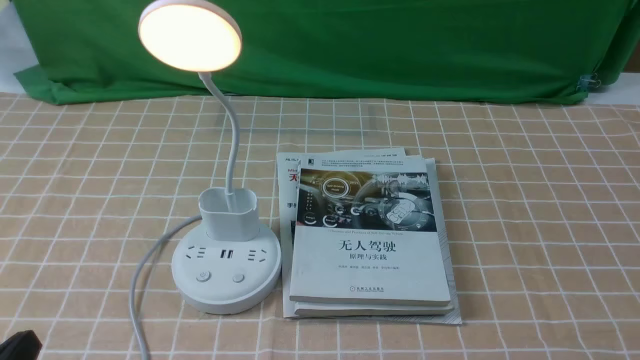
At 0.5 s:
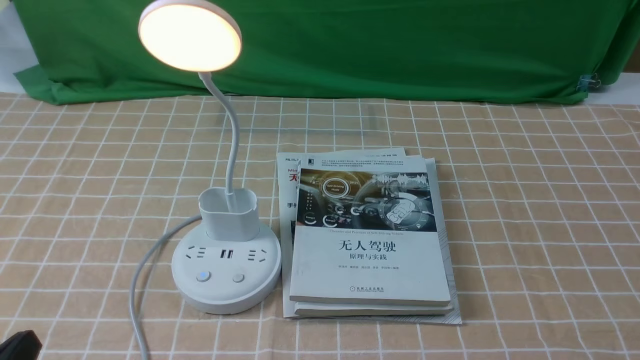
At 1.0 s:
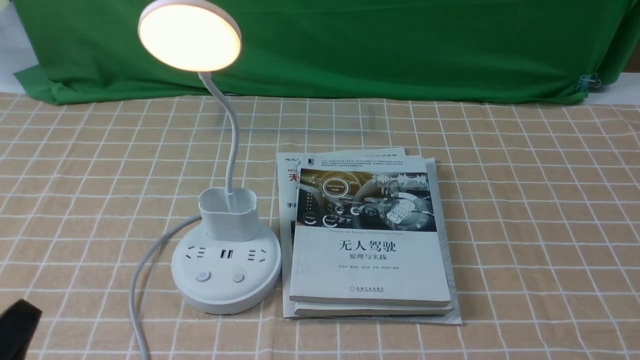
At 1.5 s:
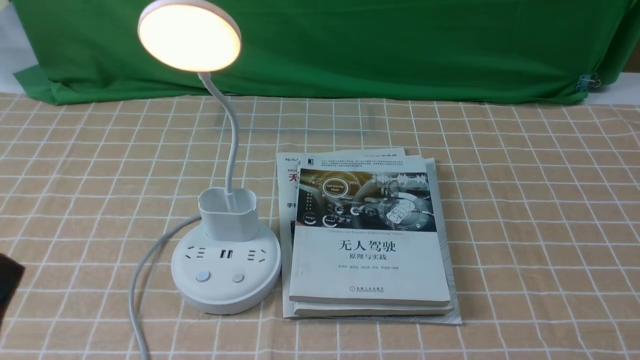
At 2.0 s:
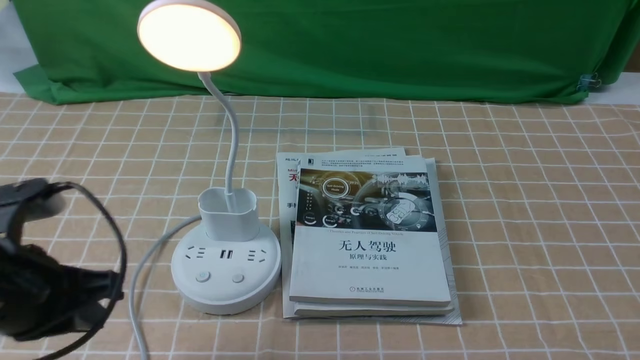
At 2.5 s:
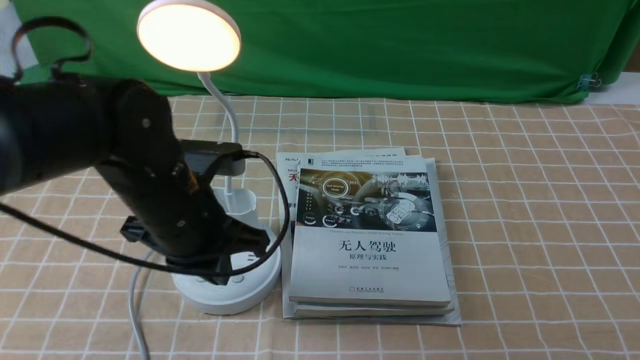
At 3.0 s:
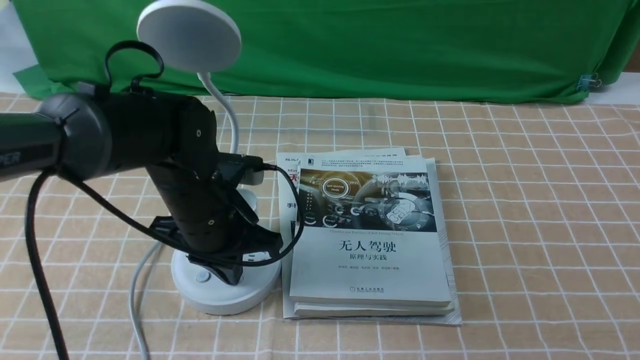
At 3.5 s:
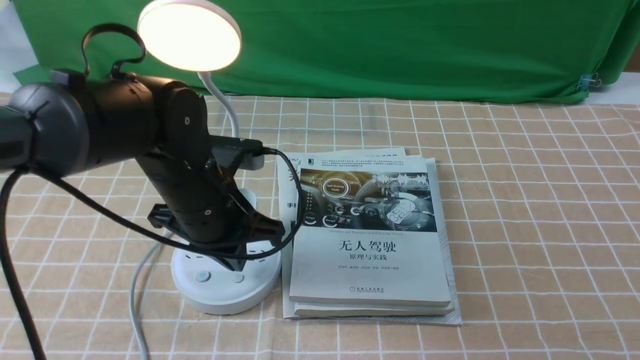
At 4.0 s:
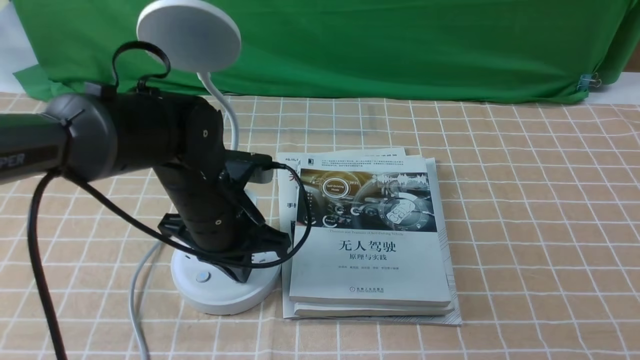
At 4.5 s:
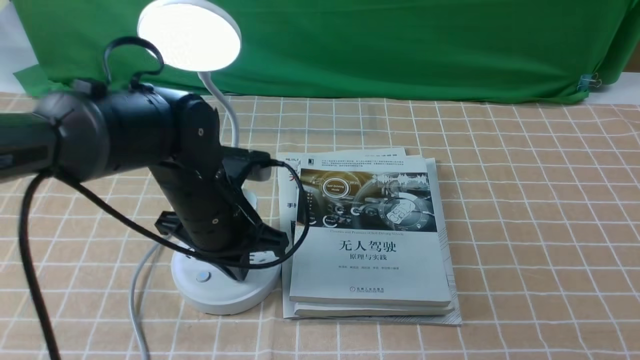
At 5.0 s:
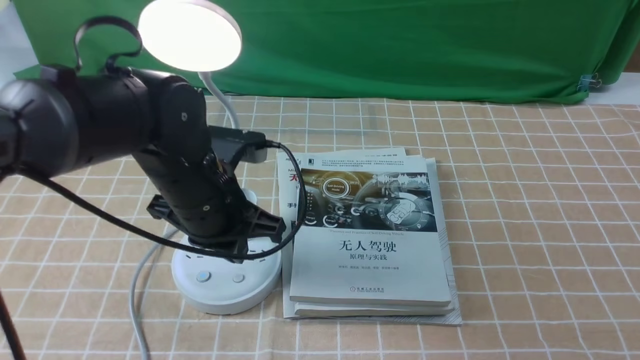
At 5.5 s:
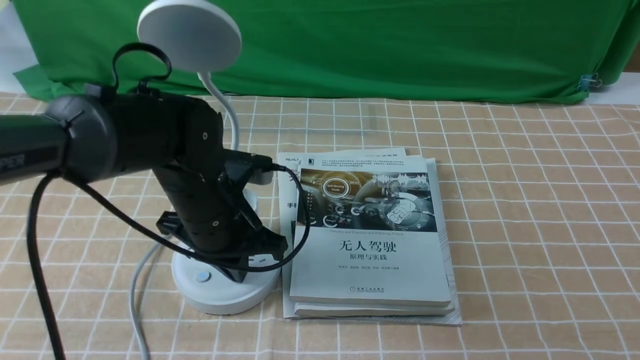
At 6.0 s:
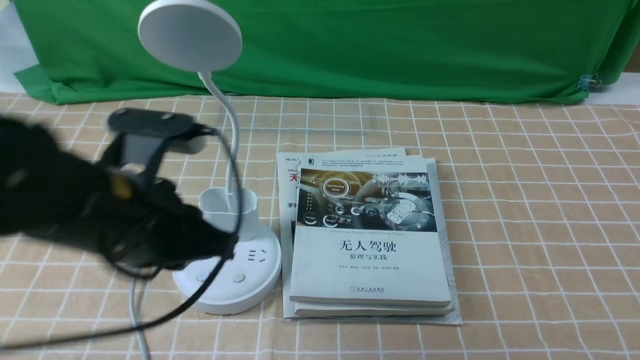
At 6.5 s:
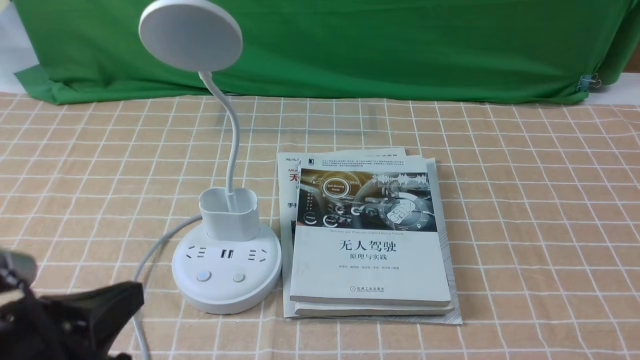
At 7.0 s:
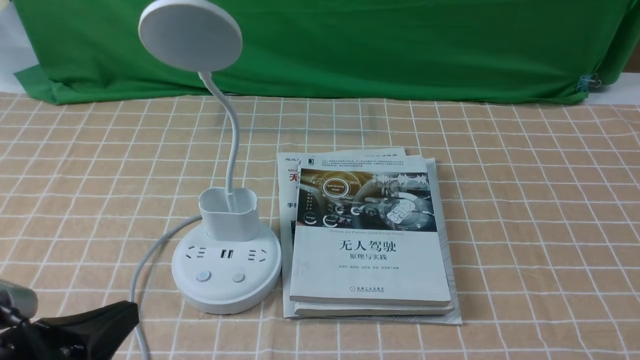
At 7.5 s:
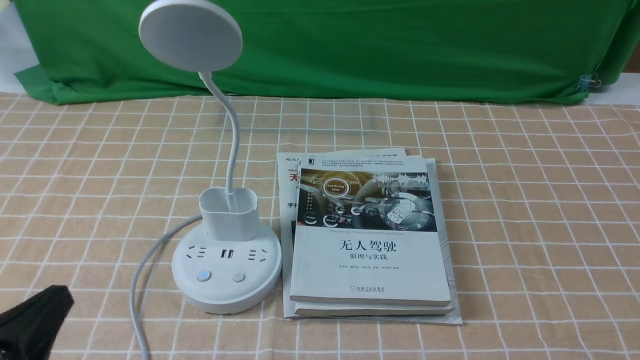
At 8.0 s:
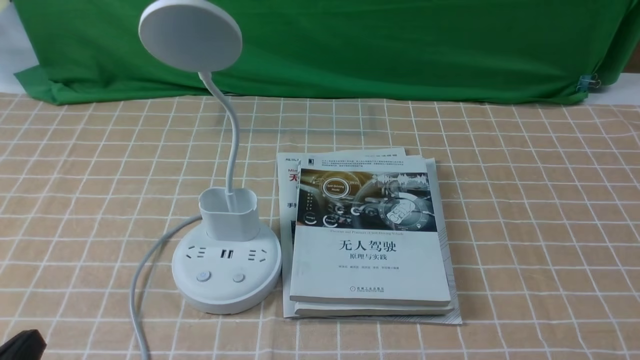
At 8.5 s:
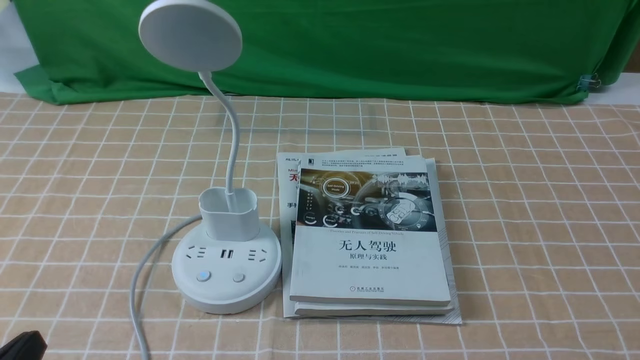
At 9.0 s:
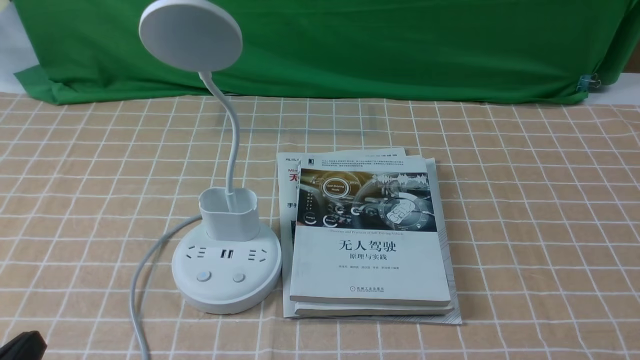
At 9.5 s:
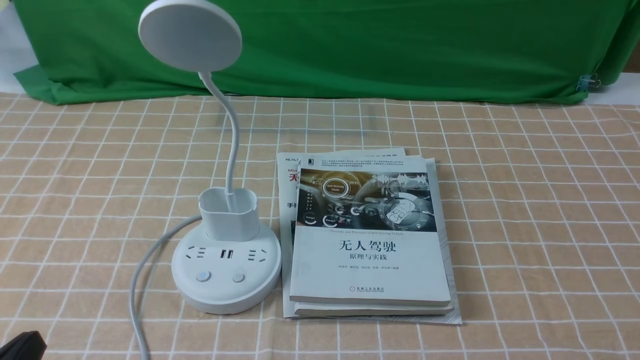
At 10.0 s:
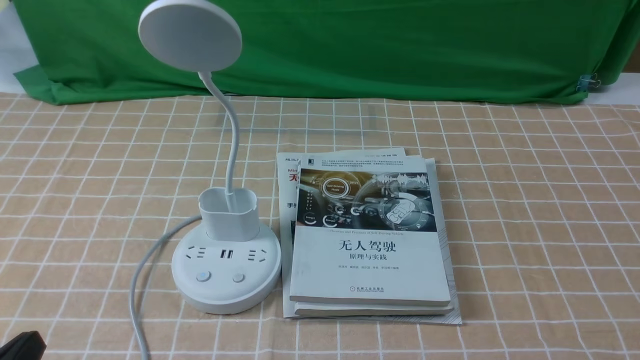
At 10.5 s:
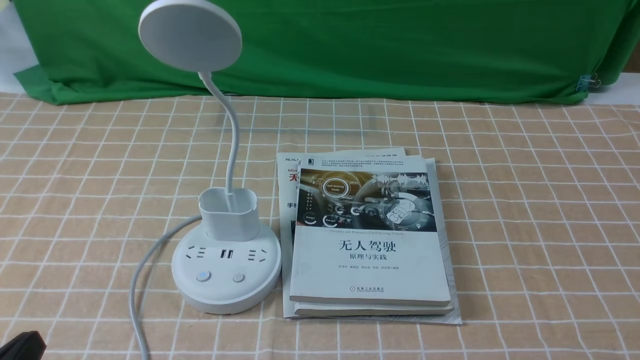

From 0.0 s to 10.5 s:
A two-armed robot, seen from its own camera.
Task of the whole recording: turn off the desk lamp on the light coffee tablecloth by hand.
Step, from 0.0 s to 5.5 s: use the left arm to press the button switch on the lamp holder.
From 0.0 s to 2.0 s: The left gripper is displaced forward and upward by approximately 15 cm.
From 2.0 s to 4.0 s: The left gripper moves forward, to the right and downward, some 20 cm, and closes.
From 4.0 s to 6.5 s: The left gripper moves backward and to the left, approximately 25 cm, and opens.
From 6.5 s to 8.5 s: The left gripper travels downward and backward by roughly 10 cm.
From 8.5 s to 10.5 s: Both grippers stay put.
